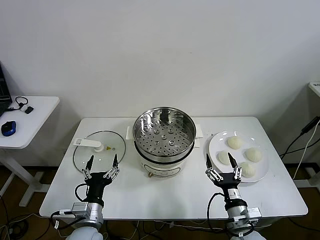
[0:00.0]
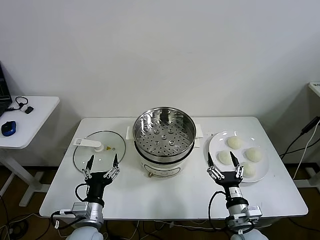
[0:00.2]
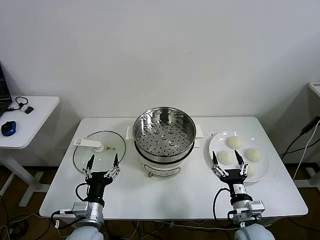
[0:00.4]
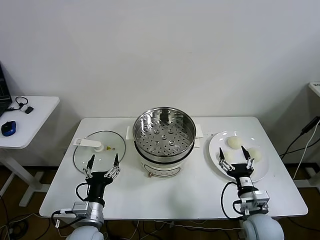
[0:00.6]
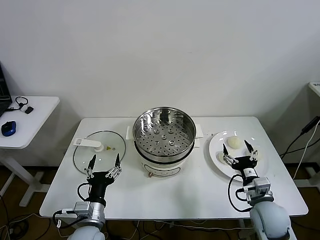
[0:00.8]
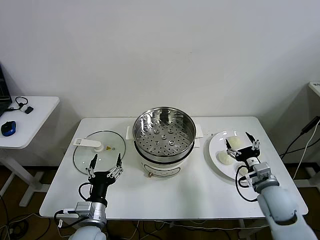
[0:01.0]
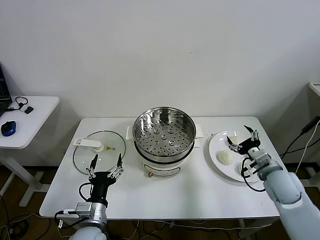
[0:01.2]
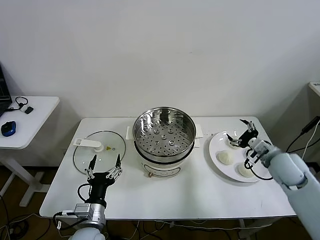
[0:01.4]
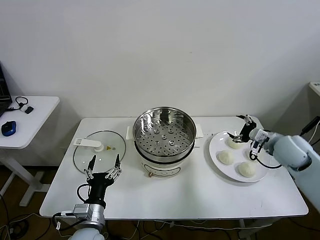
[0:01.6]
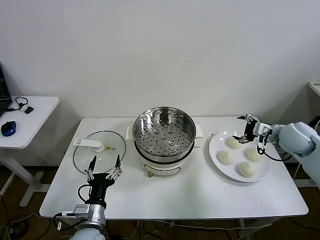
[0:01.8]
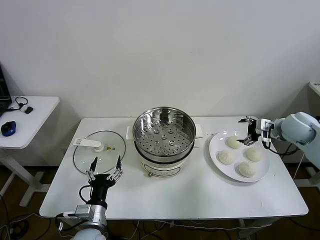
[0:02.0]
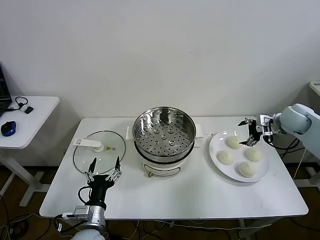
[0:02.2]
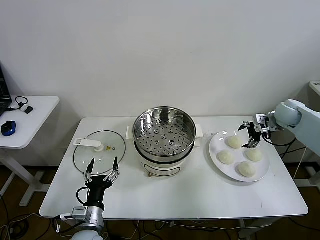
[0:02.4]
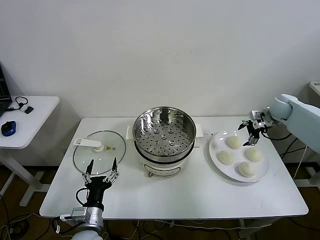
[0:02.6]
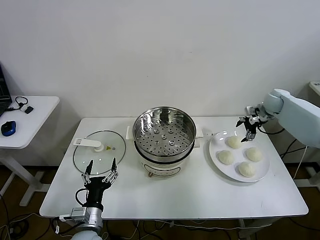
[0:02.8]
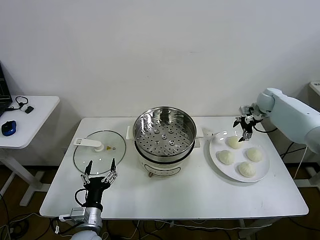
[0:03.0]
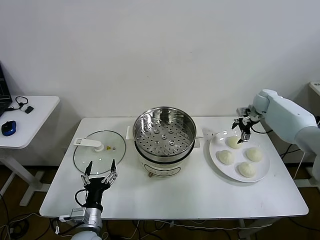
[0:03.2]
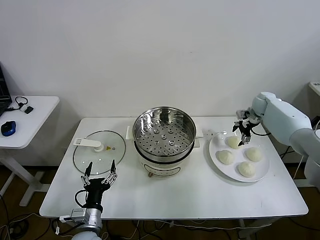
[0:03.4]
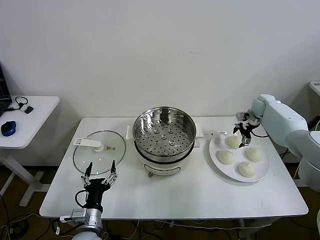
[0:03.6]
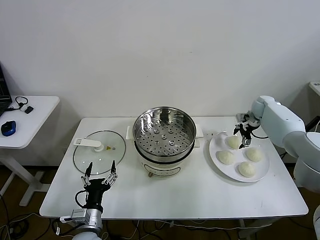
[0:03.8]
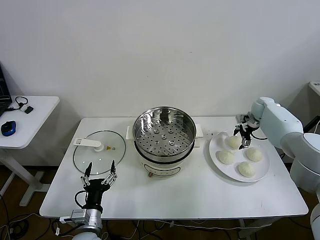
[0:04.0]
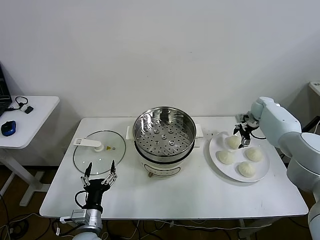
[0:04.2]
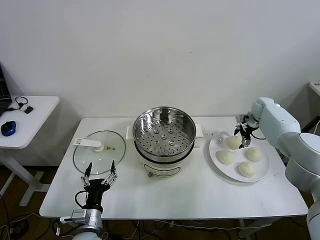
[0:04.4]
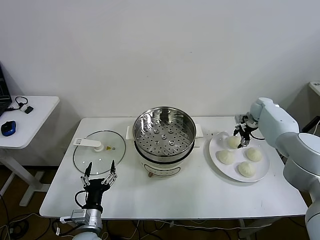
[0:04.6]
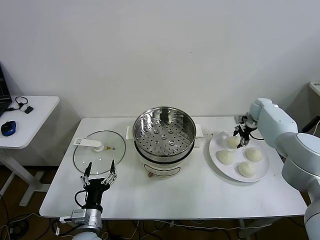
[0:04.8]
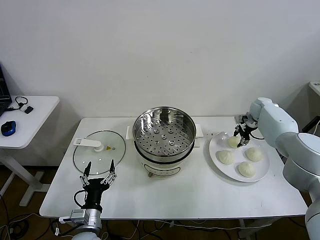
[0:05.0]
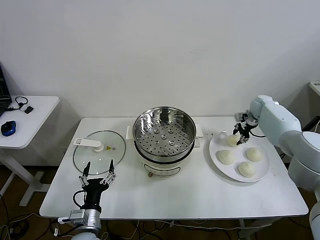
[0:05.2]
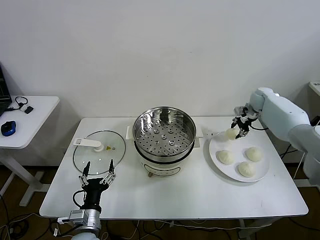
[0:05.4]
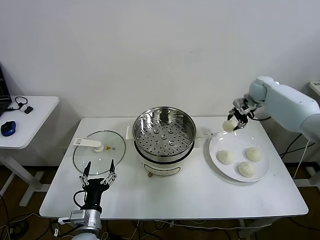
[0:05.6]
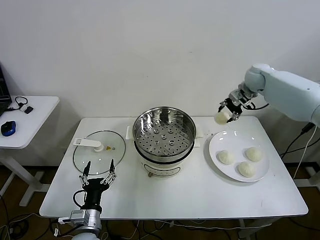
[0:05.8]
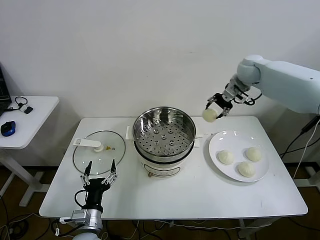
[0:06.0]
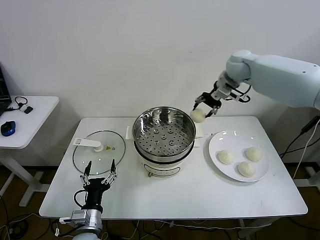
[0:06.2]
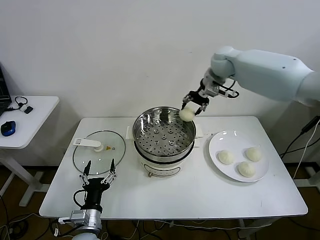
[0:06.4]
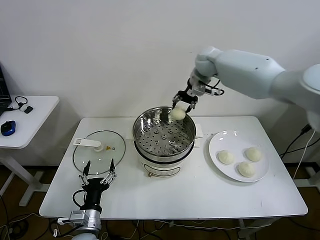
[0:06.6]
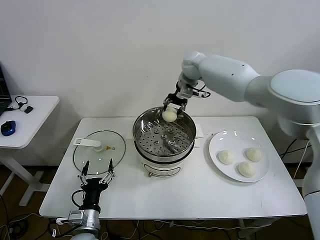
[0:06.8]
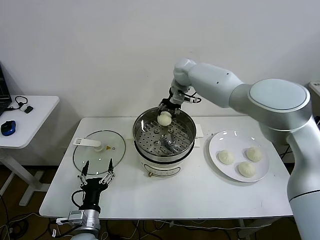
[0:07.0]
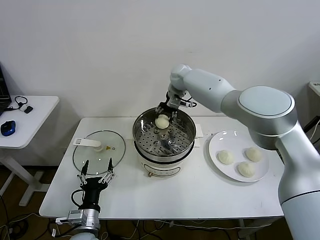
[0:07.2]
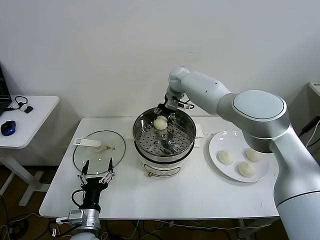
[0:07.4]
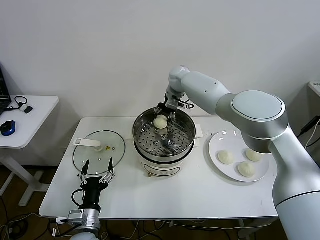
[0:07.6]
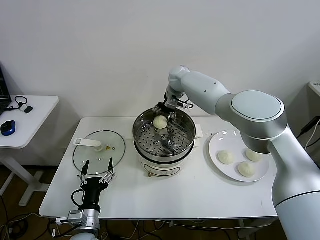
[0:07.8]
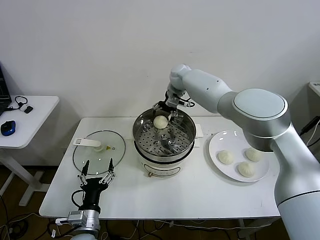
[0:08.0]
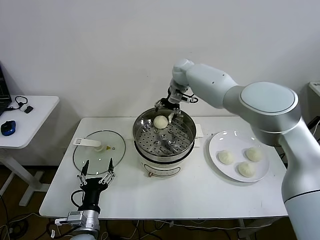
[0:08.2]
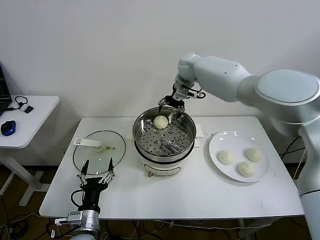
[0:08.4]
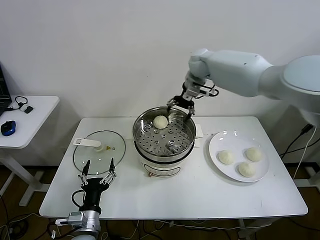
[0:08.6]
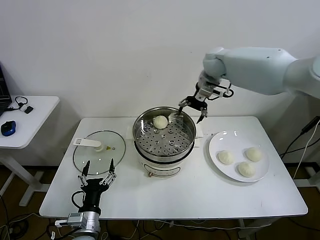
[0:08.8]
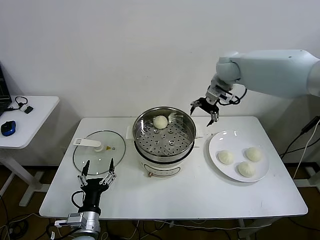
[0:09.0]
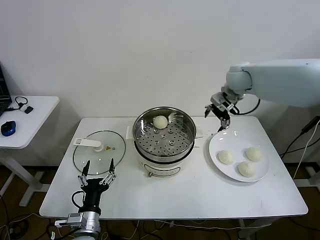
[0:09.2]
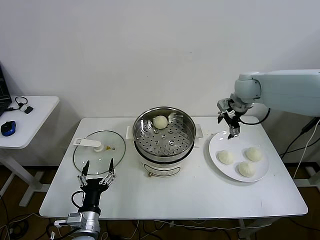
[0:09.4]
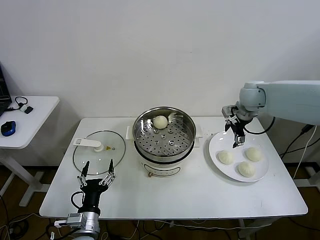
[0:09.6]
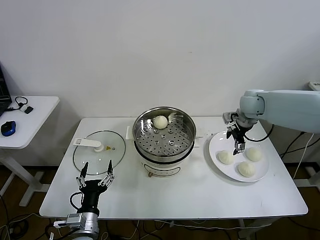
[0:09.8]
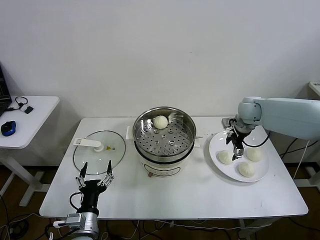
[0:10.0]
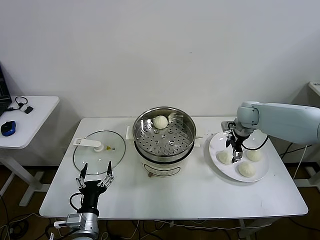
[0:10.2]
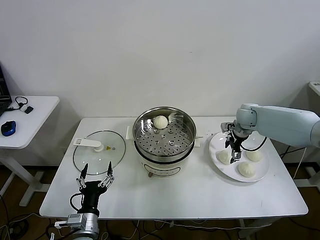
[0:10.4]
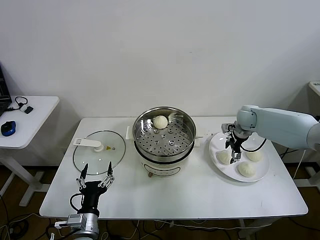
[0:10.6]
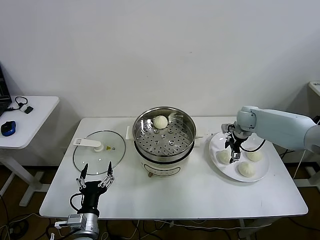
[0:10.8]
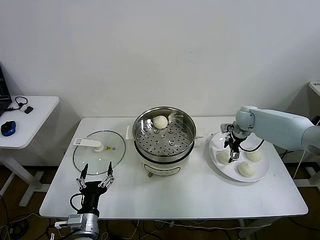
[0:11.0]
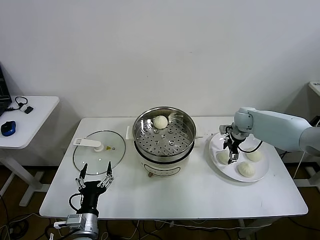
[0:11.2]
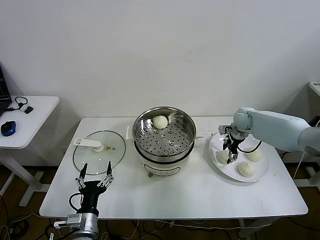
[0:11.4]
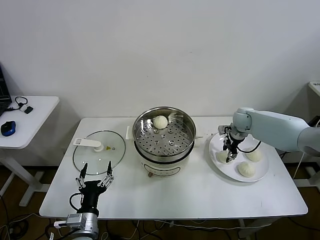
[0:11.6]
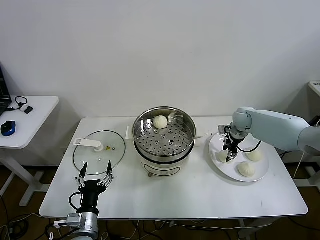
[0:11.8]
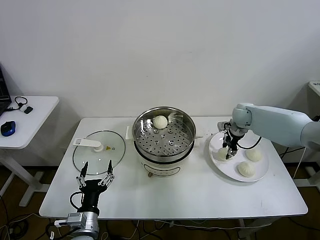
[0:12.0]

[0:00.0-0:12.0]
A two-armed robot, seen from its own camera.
Step, 0:00.0 to 0:05.2: Grasp the baozi in the plate with right gripper.
Step, 0:05.4 to 0:08.0: Place the baozi on the steamer with right gripper.
Step, 0:08.2 to 0:11.4: Grasp the baozi in the plate with right gripper.
0:01.6 to 0:03.0: The right gripper moves forward, some 20 cm.
0:03.0 to 0:04.4: The right gripper heads downward, covering roughly 5 cm.
0:04.4 to 0:06.0: The right gripper shifts roughly 25 cm upward and to the left, and closes its fingers.
0:06.0 to 0:07.6: The right gripper goes some 20 cm to the left.
0:07.6 to 0:09.0: The right gripper heads to the right, backward and upward, covering roughly 20 cm, and opens up.
0:09.0 to 0:10.4: The right gripper heads downward and to the right, covering approximately 20 cm.
0:10.4 to 0:12.0: The right gripper closes.

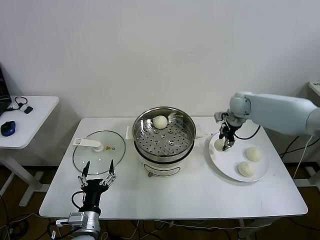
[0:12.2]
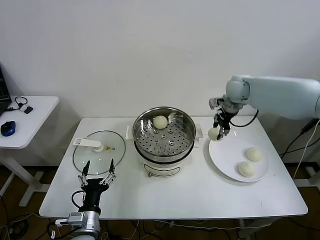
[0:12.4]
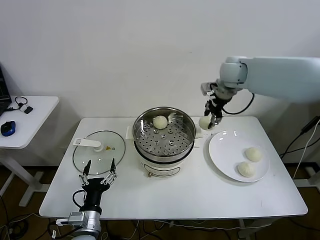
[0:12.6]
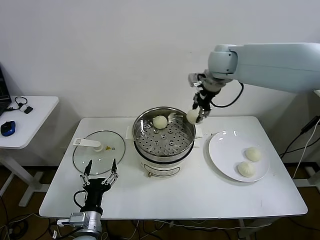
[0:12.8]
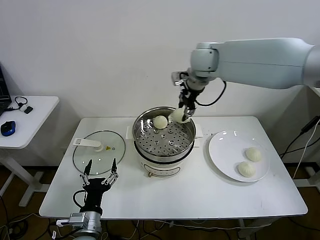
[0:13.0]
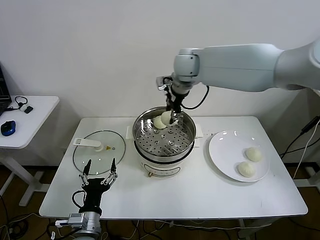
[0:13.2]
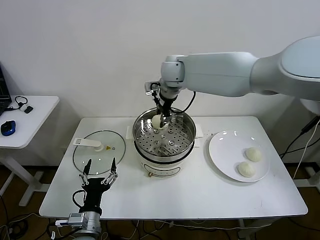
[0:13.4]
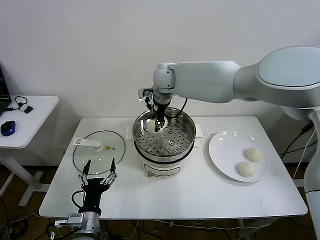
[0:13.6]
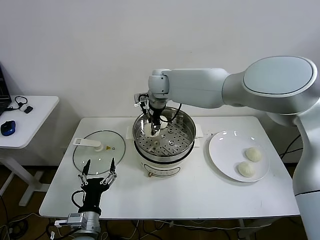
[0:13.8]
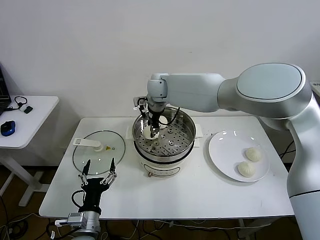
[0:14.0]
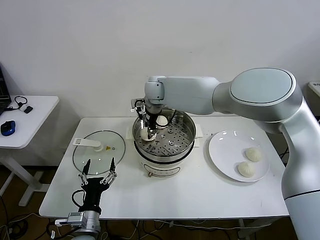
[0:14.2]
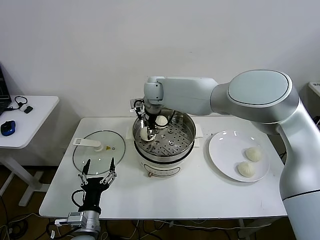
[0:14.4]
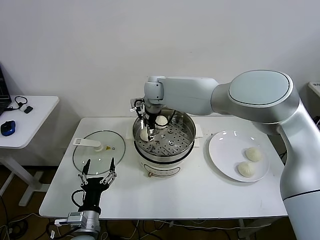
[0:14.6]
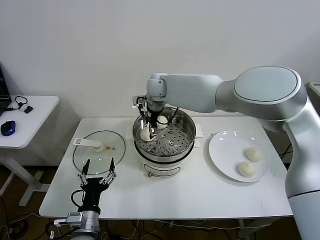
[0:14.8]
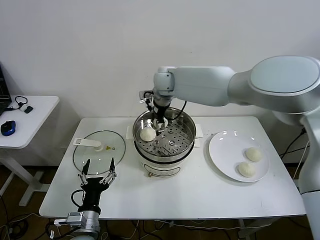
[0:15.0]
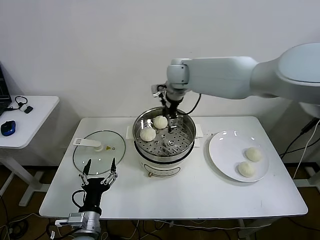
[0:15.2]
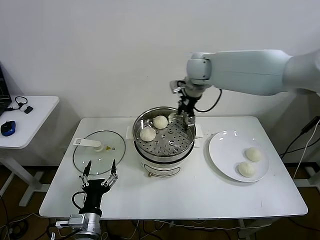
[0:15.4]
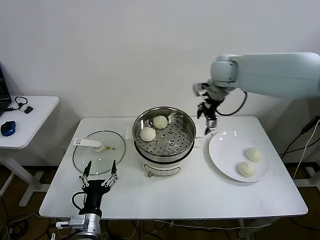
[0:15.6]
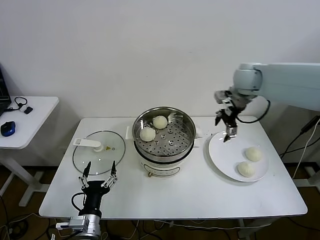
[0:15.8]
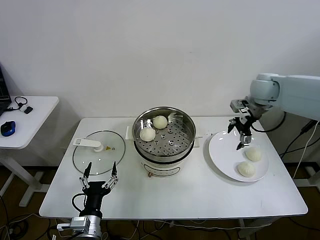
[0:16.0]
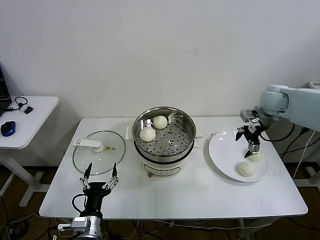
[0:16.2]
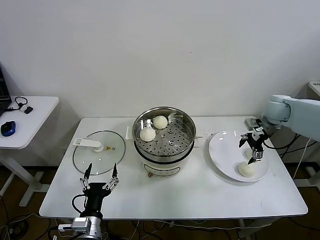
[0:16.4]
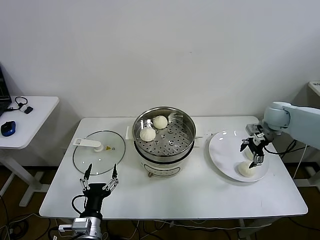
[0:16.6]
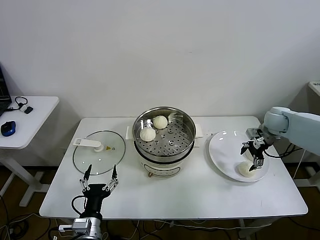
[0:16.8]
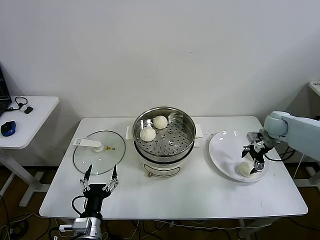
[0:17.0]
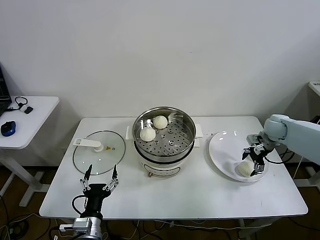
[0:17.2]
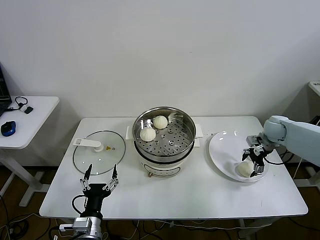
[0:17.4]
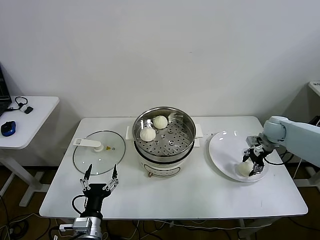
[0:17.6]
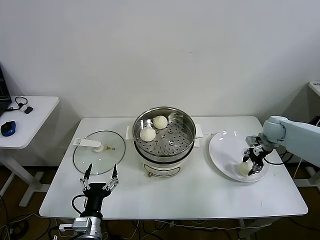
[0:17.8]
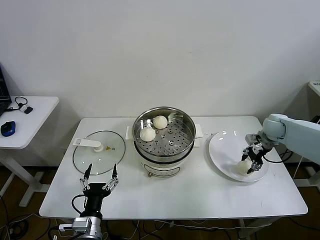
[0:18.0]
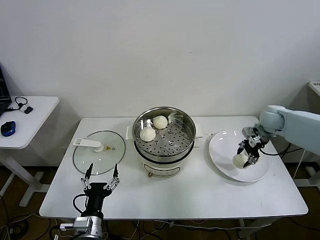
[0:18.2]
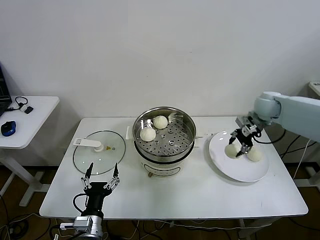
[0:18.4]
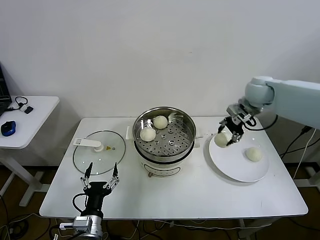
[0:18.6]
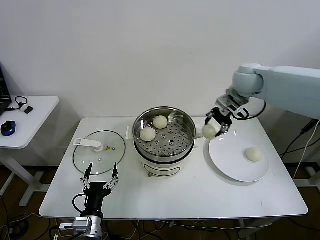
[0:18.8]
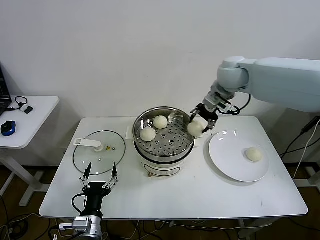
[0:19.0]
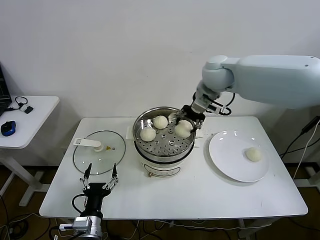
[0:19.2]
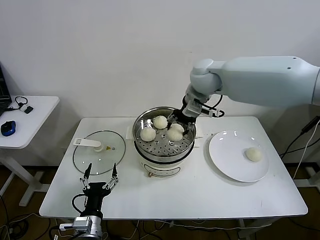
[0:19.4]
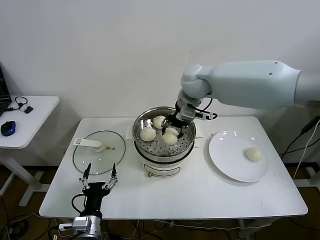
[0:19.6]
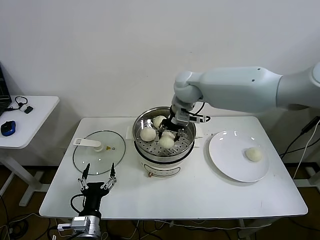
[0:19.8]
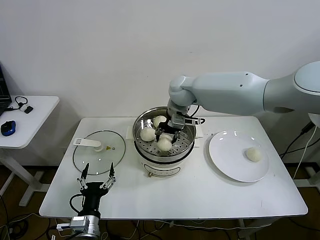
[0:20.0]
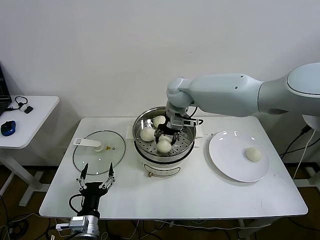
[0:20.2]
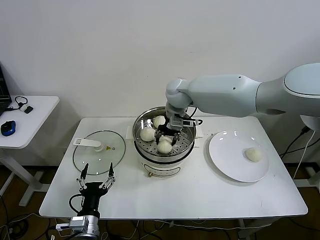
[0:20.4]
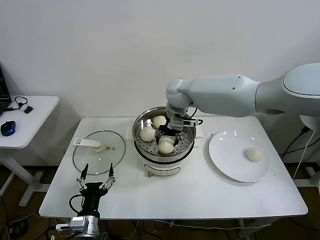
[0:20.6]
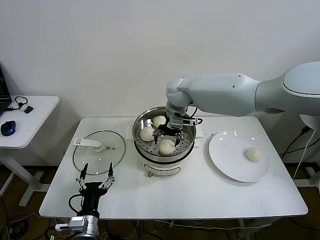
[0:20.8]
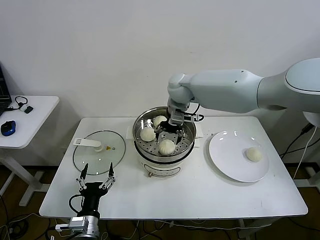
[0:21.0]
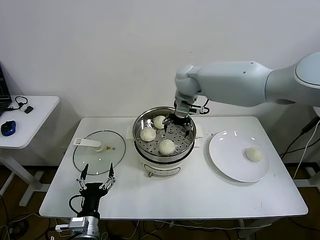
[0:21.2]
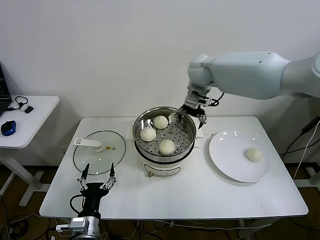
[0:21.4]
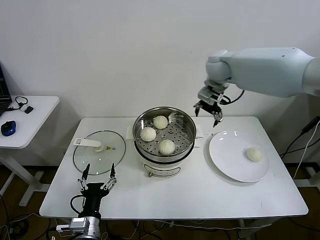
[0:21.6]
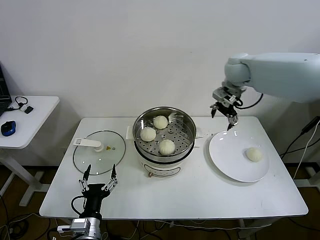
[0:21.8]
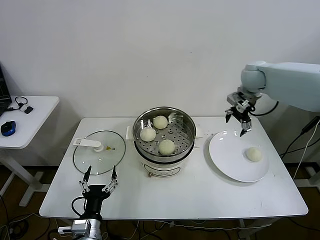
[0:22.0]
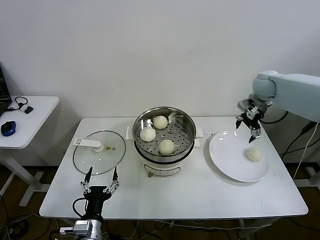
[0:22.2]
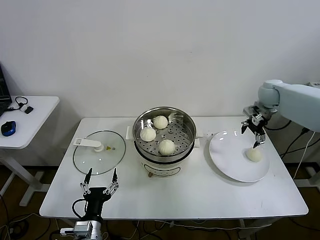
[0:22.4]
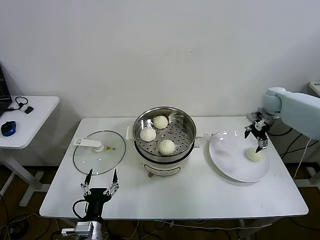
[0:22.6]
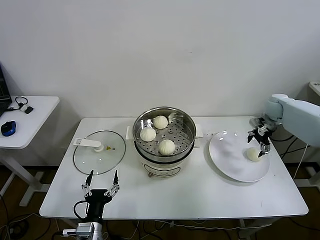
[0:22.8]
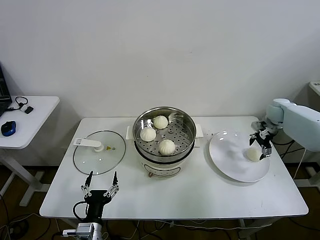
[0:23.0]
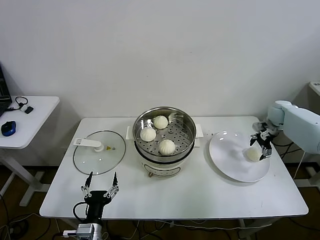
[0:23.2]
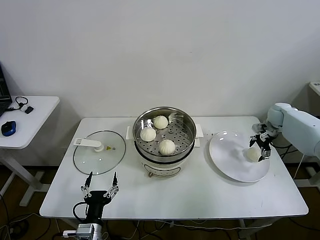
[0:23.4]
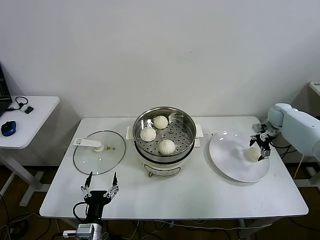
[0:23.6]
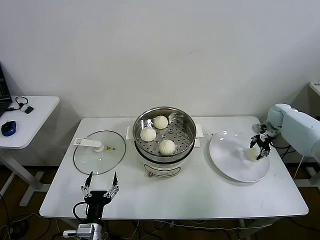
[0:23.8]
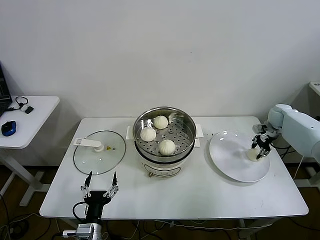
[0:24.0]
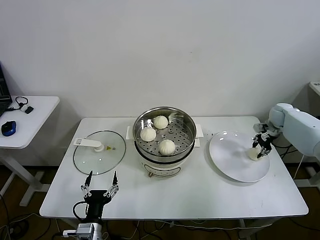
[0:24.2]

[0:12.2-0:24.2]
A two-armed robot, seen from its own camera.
Step, 0:12.2 to 0:14.8: Place the baozi on the steamer with right gripper.
Step, 0:15.2 to 0:17.8: Grasp the baozi in the plate with right gripper.
Step, 0:18.0 to 0:20.8: Place the baozi on the steamer with right gripper.
Step, 0:21.0 to 0:23.8: Grasp the baozi in the plate with right gripper.
0:12.2 to 0:13.8: The right gripper moves to the left, some 30 cm.
0:13.8 to 0:15.2: The right gripper shifts roughly 10 cm to the right, and opens its fingers.
0:15.2 to 0:16.6: The right gripper goes some 35 cm to the right and downward.
0:16.6 to 0:18.2: The right gripper closes.
0:18.2 to 0:19.8: The right gripper shifts approximately 30 cm to the left.
0:19.8 to 0:21.2: The right gripper opens.
0:21.2 to 0:22.6: The right gripper moves to the right, about 35 cm.
0:22.6 to 0:24.2: The right gripper shifts about 10 cm downward and to the right, and closes up.